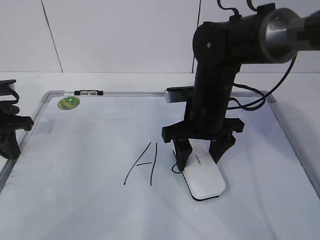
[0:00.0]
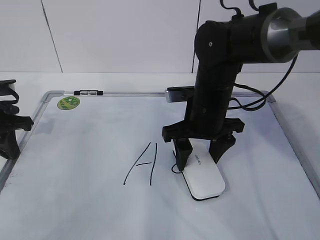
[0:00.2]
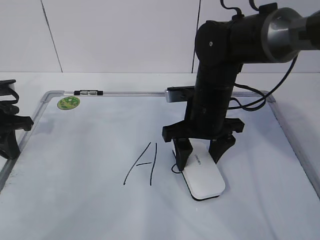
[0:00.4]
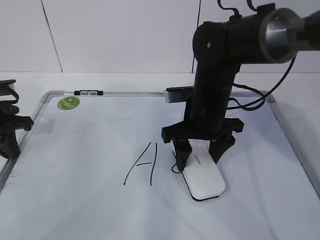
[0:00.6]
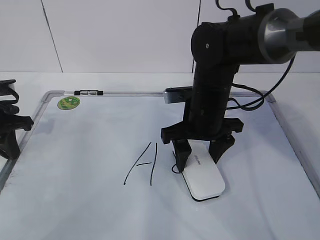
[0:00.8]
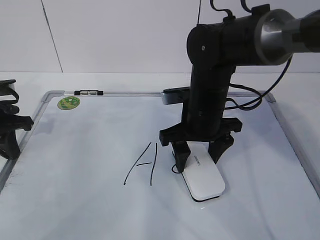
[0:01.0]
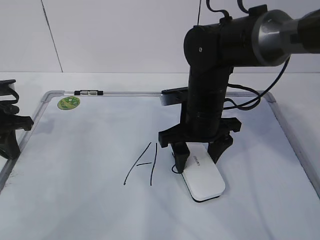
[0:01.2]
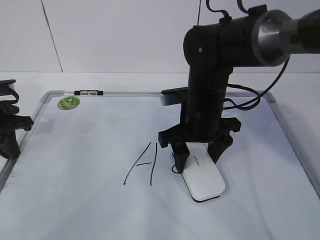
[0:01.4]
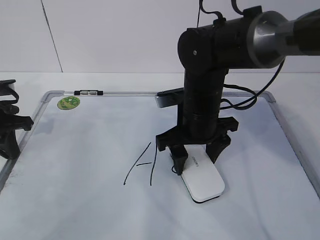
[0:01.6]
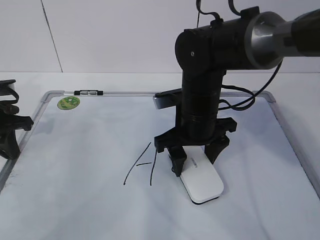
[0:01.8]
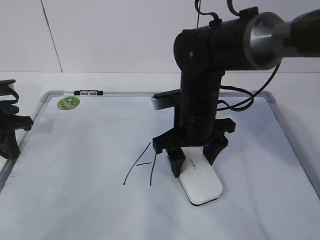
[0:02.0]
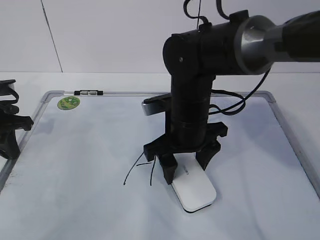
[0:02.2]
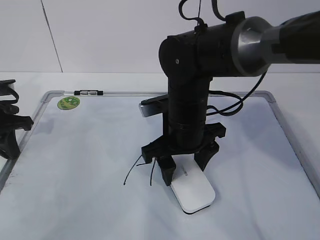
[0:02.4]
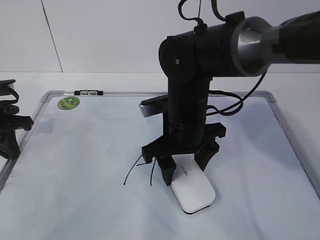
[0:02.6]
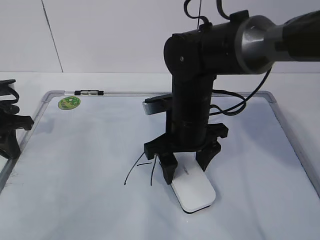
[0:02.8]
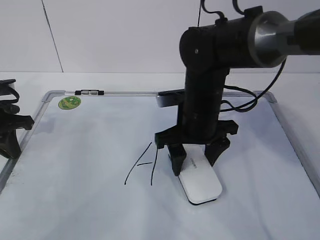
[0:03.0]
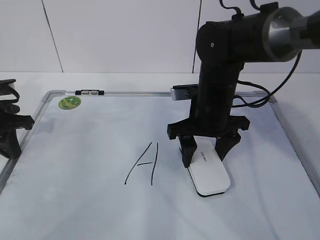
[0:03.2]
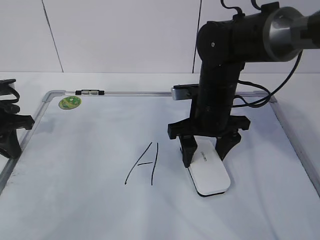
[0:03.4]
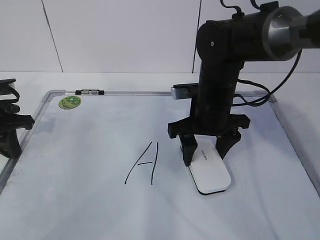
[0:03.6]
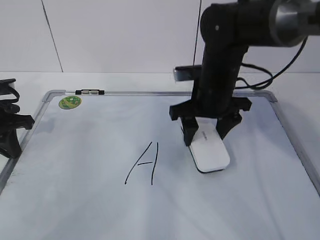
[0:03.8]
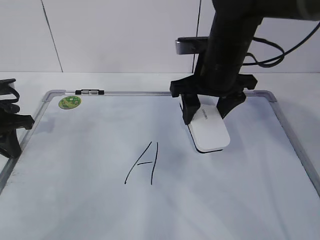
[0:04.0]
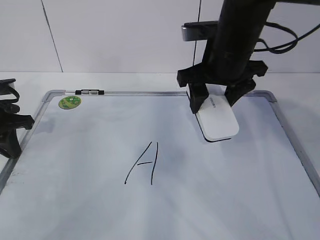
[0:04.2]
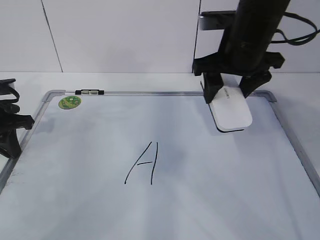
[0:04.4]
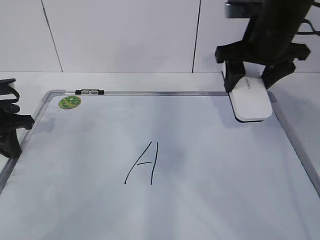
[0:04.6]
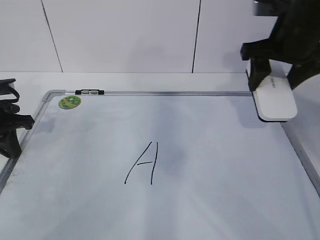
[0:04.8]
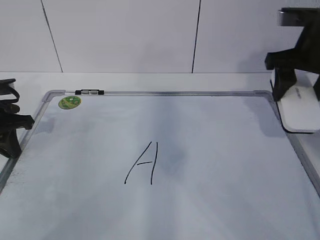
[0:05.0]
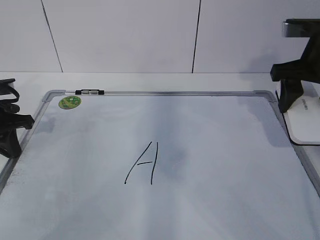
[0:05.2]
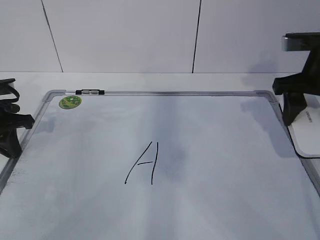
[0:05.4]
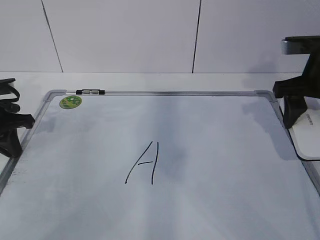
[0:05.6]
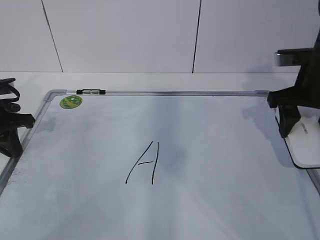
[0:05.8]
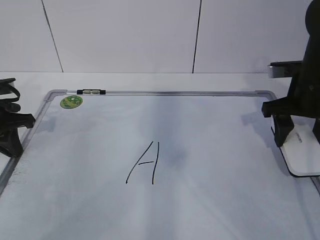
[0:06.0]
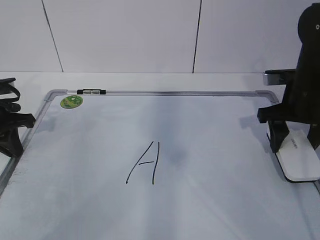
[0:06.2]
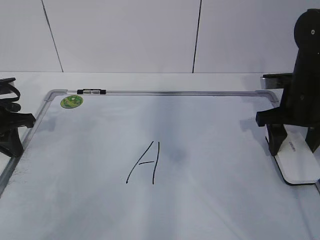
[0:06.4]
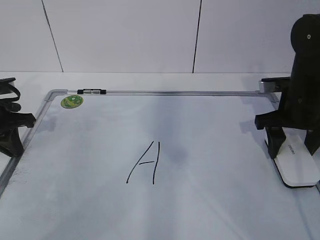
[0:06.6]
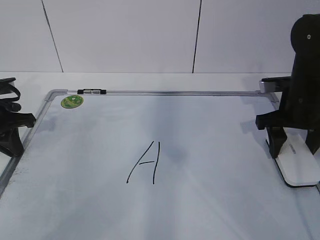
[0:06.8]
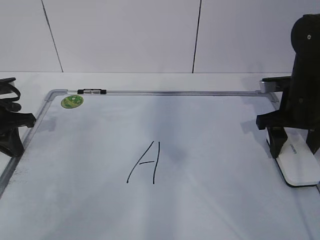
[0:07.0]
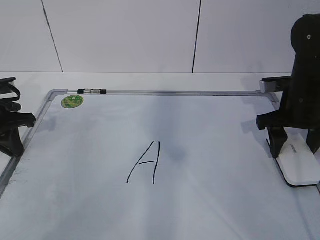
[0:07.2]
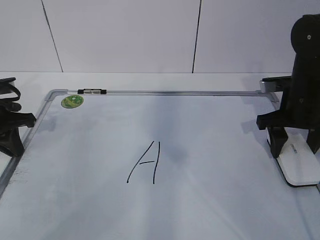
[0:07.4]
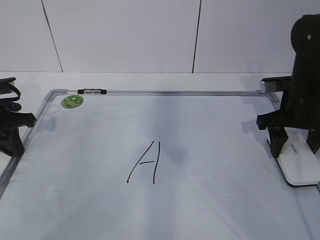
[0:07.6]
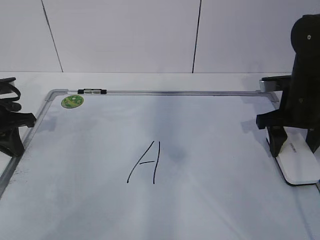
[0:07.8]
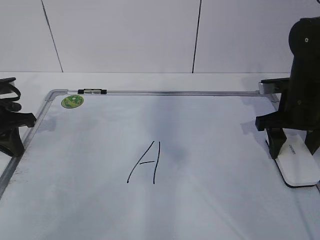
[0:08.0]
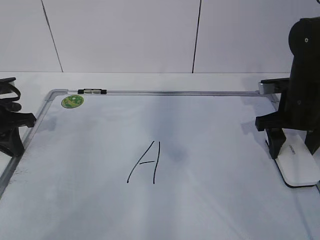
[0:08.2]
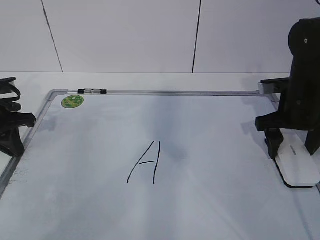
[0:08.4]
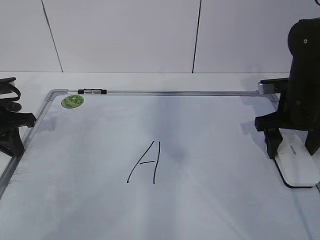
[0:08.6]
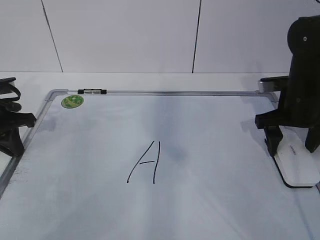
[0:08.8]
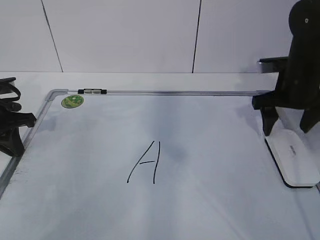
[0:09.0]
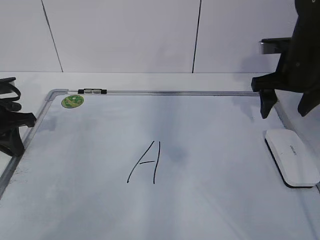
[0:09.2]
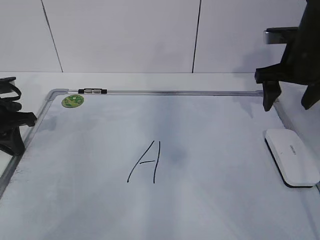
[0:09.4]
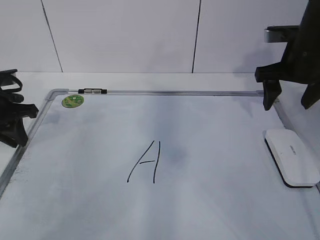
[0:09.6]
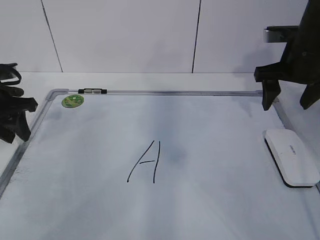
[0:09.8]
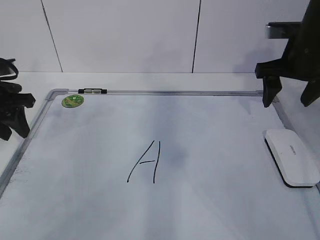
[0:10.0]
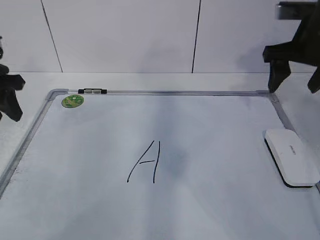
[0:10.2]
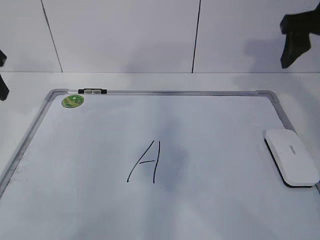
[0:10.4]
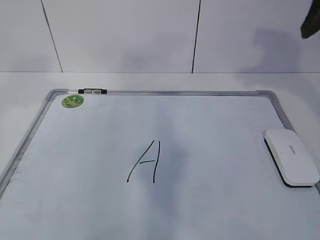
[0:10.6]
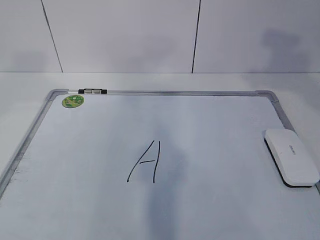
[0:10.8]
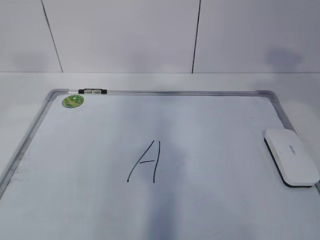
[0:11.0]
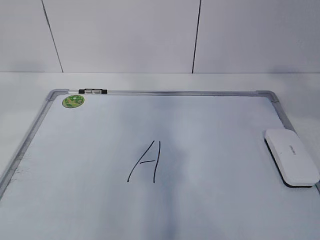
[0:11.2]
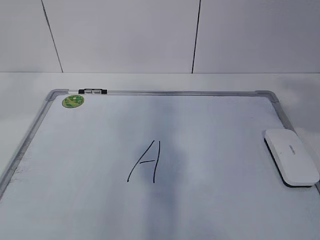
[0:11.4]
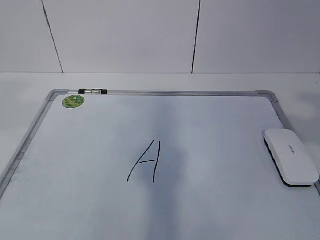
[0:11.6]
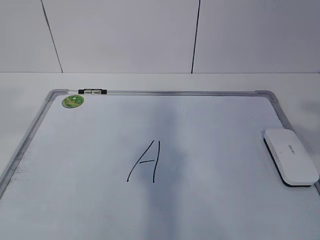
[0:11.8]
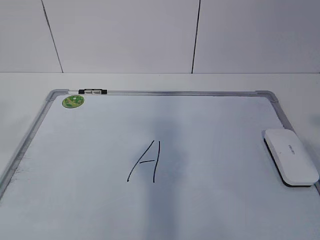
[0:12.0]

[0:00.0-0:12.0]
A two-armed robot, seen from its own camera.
Task of the whole recording: pick up the eraser on the blackboard and erase the letter "a".
Step, 0:00.0 to 0:03.0: Put down the eraser with your right hand.
0:00.0 to 0:03.0: The grippers stay close to where they were, moving slightly.
0:03.0 to 0:04.4: The right gripper moves upward and to the right, about 10 cm.
0:04.4 to 0:06.0: The right gripper goes roughly 15 cm to the right and downward.
0:06.0 to 0:07.6: The grippers move only a little.
0:07.6 to 0:09.0: The right gripper opens up.
0:09.0 to 0:10.4: Both grippers travel together upward, roughly 15 cm. The left gripper opens up.
0:10.4 to 0:12.0: The right gripper heads backward, covering roughly 30 cm; the left gripper travels backward and upward by some 40 cm.

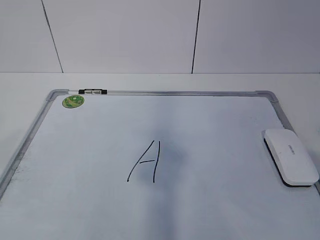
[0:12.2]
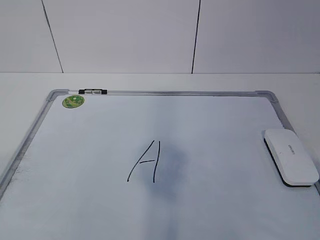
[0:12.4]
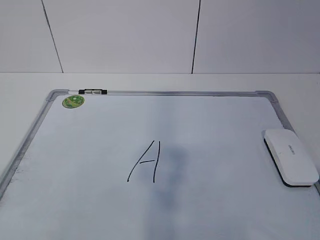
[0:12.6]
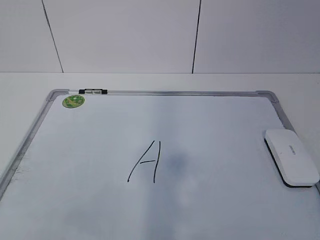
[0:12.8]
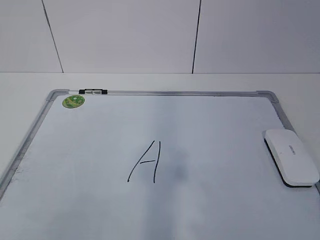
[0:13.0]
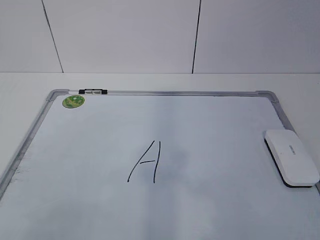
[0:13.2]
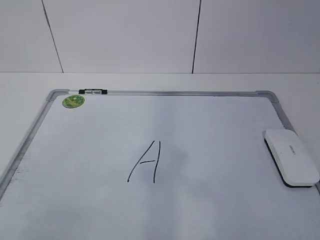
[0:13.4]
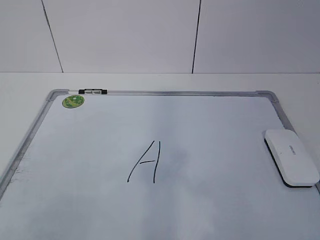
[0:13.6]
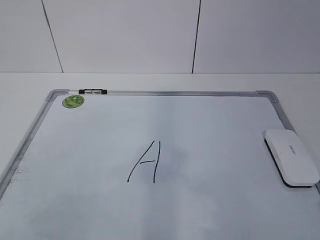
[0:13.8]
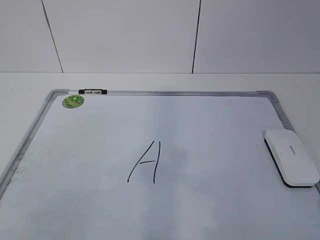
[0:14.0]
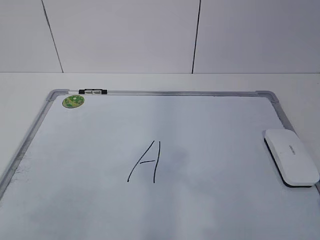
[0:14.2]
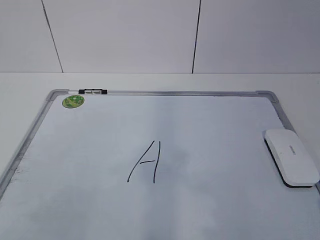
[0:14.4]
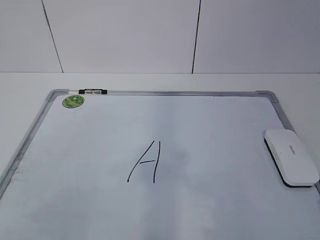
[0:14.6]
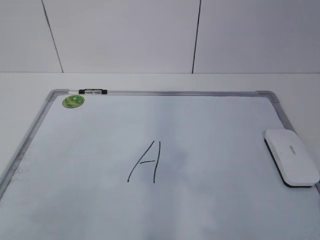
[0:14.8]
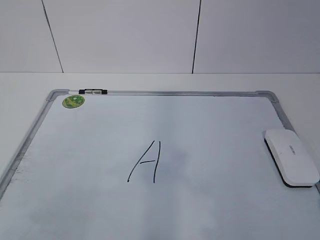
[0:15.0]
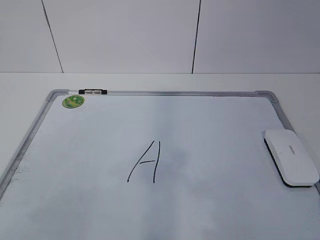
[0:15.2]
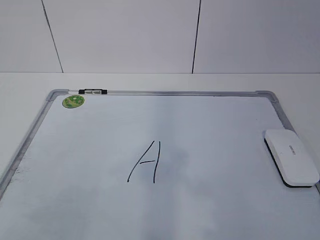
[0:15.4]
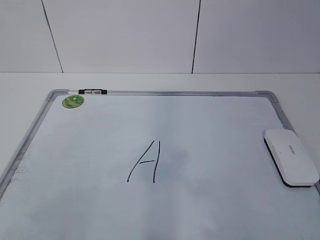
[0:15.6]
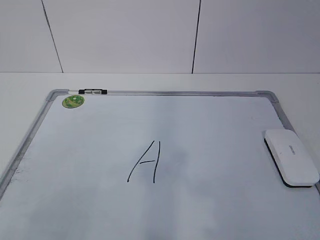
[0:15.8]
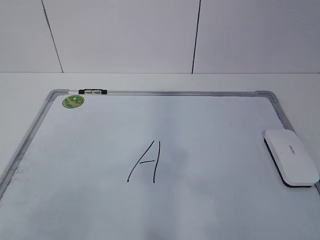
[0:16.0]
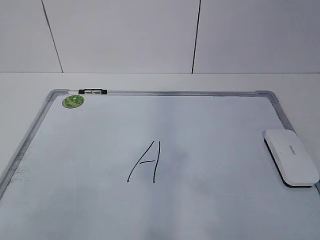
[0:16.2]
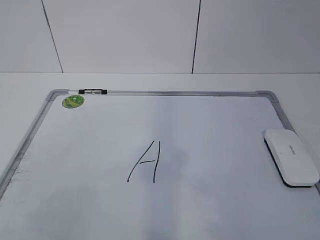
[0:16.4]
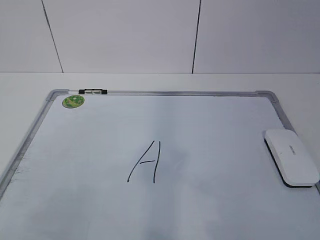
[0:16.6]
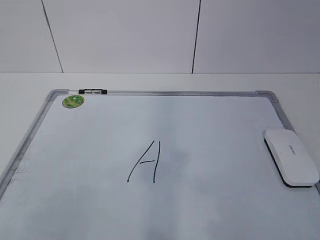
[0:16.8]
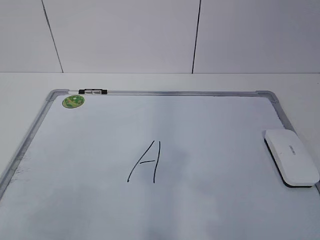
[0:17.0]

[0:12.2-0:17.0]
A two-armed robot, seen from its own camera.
Task of the whole recording: pick up the eraser on the blackboard and erase the letter "a".
0:12.2 to 0:13.8: The grippers both shift downward by approximately 15 cm.
0:13.8 to 0:15.4: The two grippers keep their place.

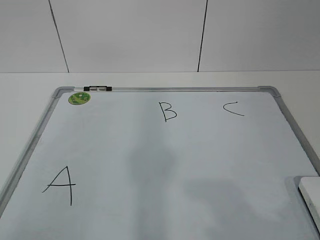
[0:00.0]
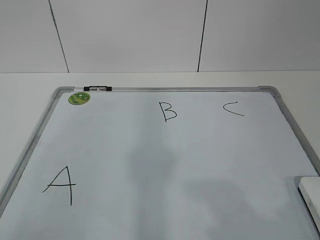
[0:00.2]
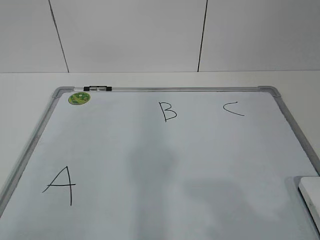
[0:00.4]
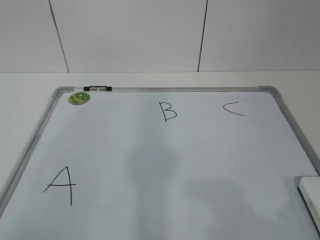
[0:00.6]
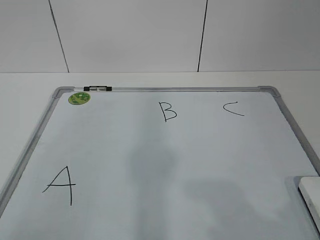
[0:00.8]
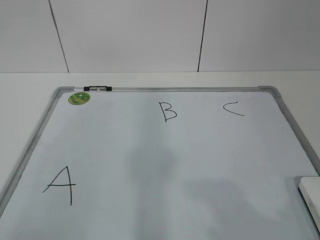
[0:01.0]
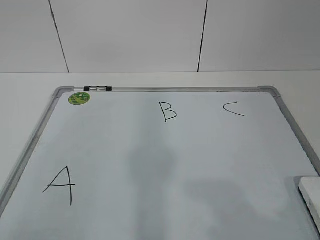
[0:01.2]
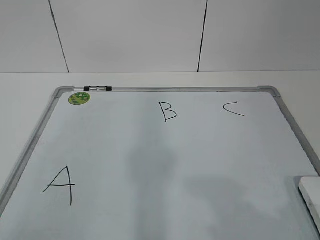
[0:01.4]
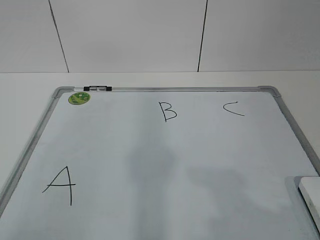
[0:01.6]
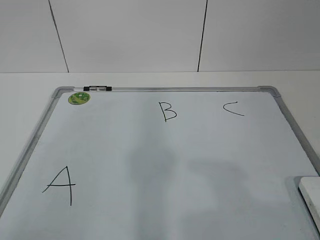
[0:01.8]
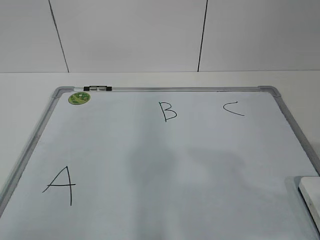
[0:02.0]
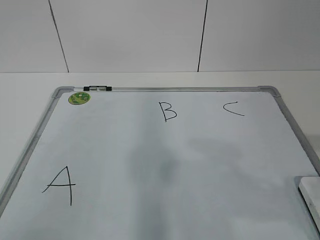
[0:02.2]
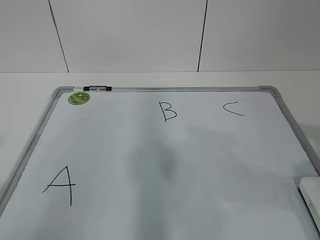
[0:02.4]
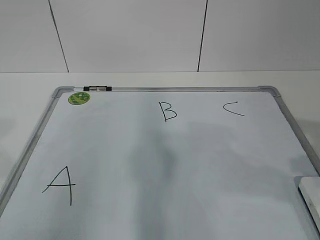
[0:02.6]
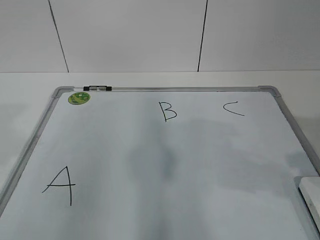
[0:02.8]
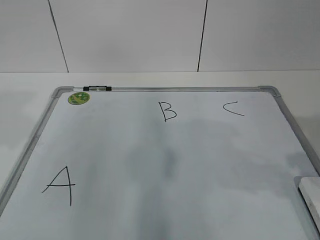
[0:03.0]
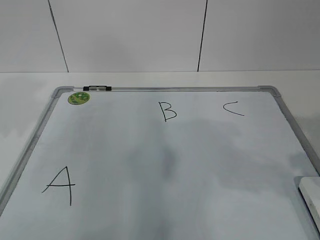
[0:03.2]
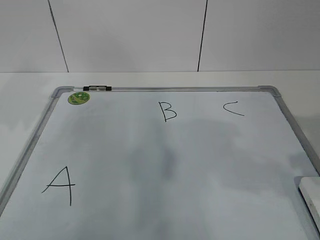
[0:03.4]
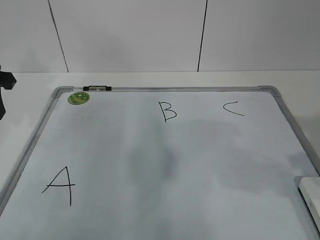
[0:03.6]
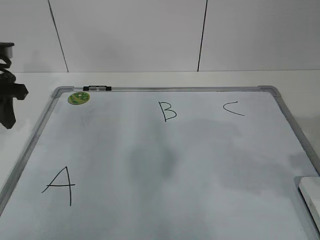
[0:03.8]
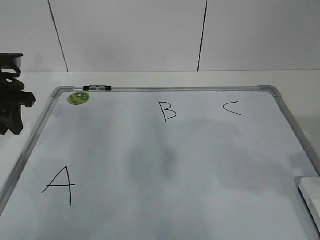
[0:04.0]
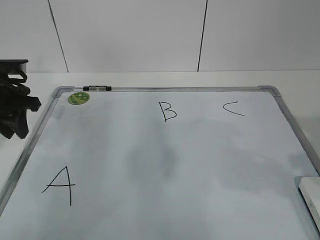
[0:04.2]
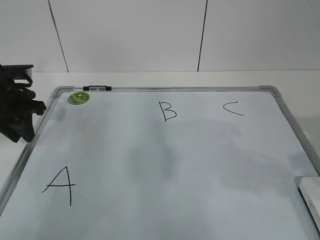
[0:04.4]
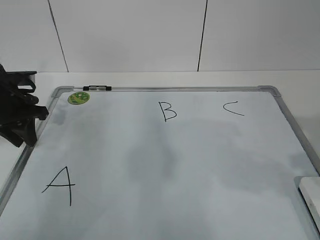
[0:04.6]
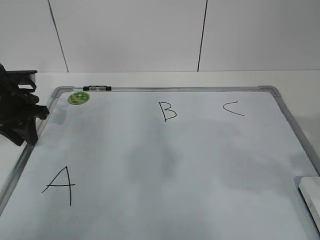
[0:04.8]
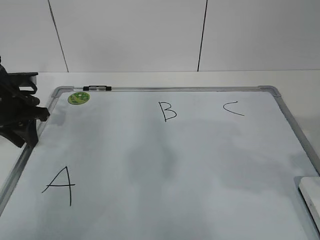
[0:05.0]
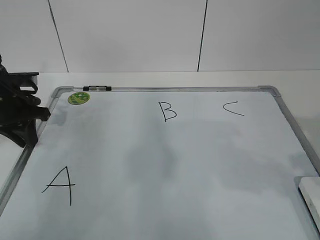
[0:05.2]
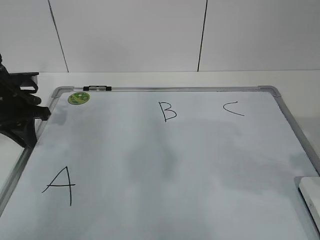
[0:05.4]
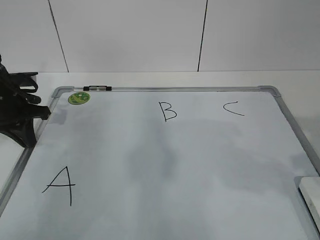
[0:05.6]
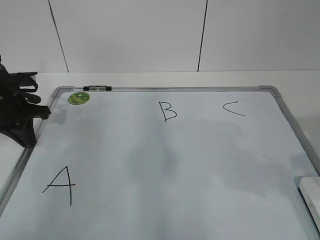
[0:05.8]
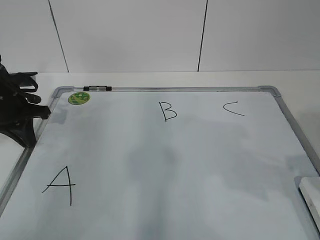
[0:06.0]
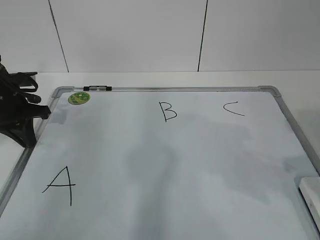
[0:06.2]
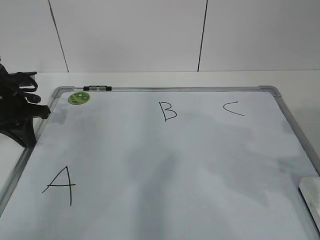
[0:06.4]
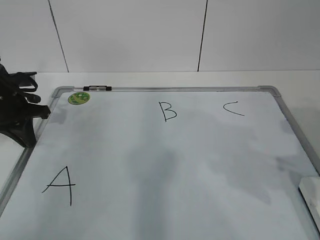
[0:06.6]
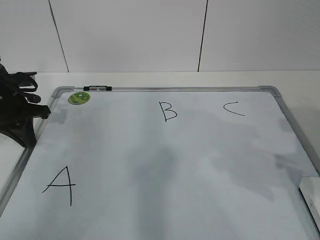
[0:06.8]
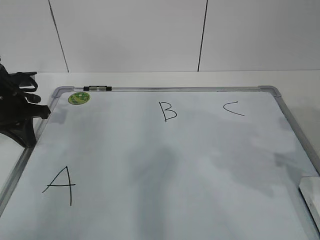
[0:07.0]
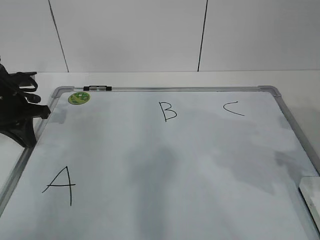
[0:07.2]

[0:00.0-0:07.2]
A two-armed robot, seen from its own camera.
Task of the whole recording: pick up the eraser on the blackboard and erase the letter "B".
Step, 0:00.0 to 0:04.6: Hold the drawing board steady with your left hand.
0:01.4 to 0:02.8: Both grippers move forward, approximately 15 cm.
0:02.8 to 0:04.4: The left gripper goes approximately 30 cm forward and downward.
0:04.4 to 0:05.8: The left gripper closes up.
